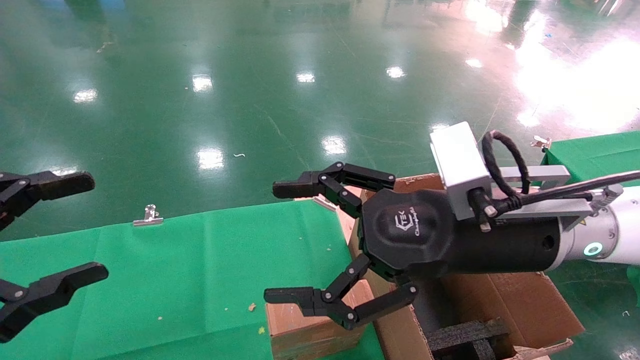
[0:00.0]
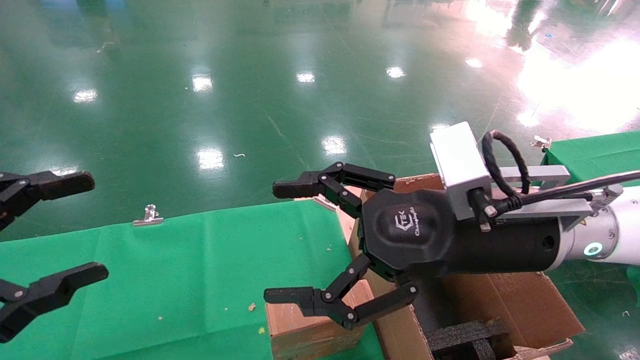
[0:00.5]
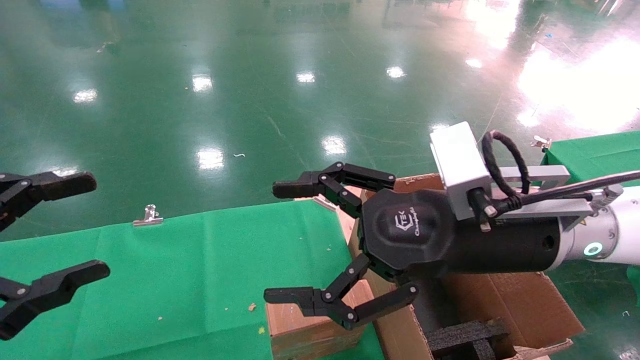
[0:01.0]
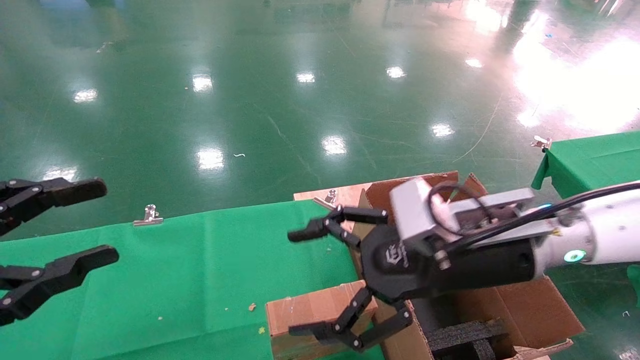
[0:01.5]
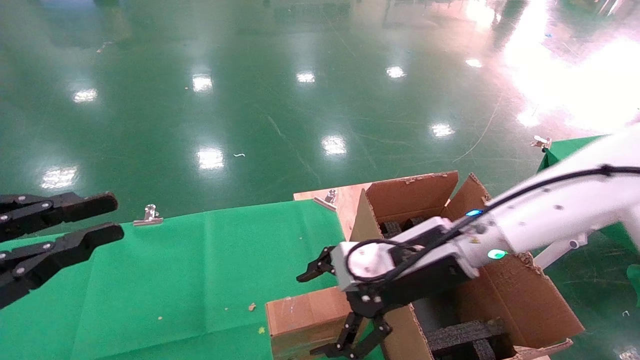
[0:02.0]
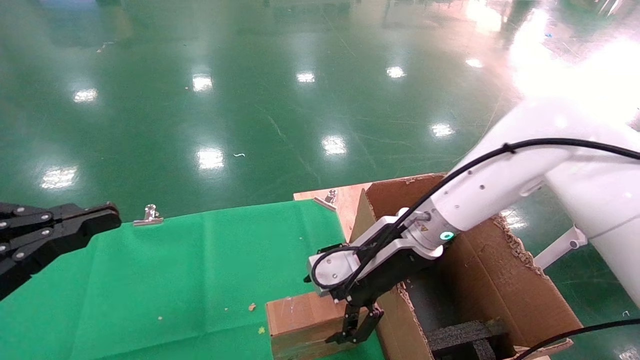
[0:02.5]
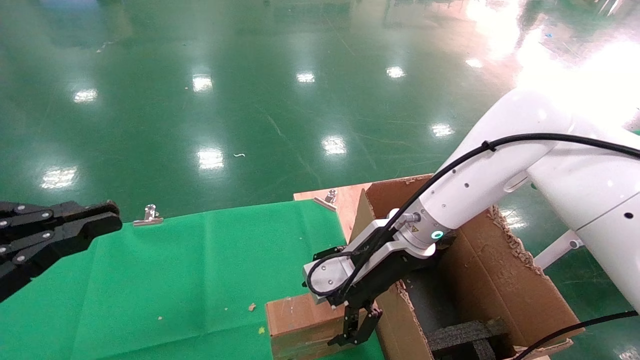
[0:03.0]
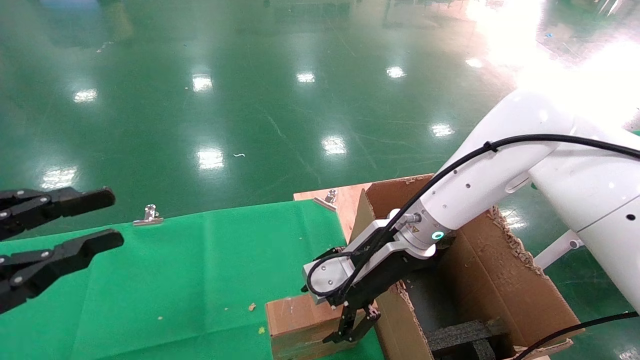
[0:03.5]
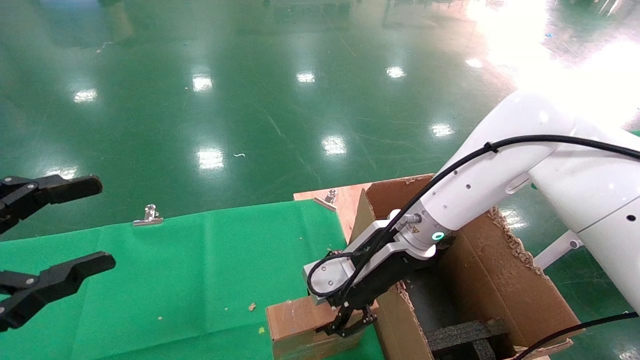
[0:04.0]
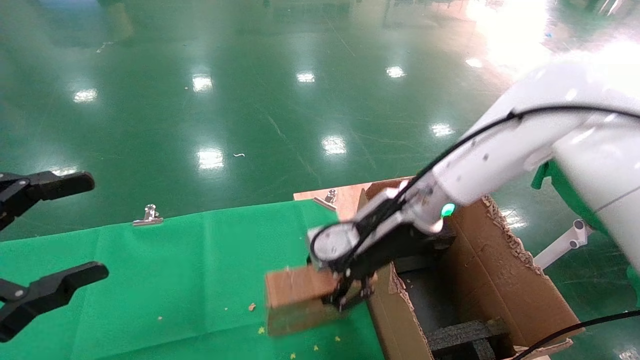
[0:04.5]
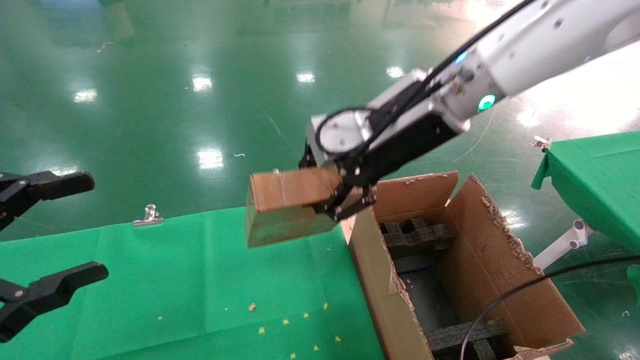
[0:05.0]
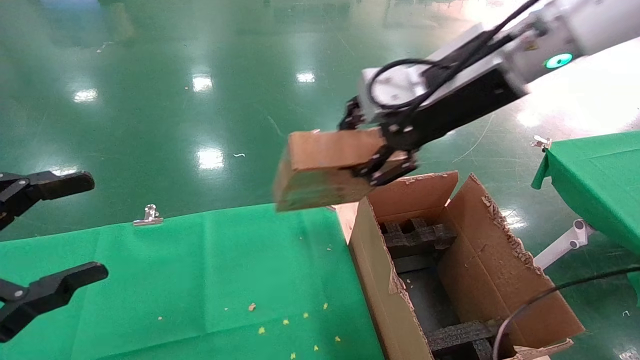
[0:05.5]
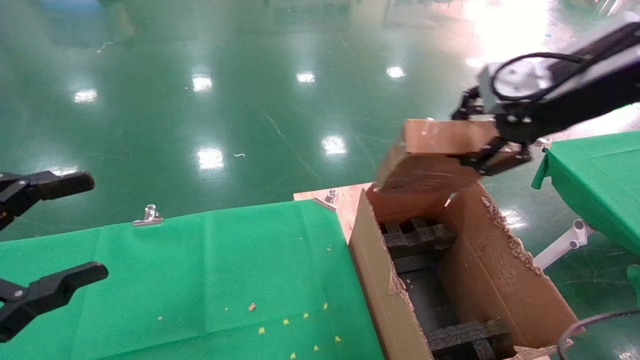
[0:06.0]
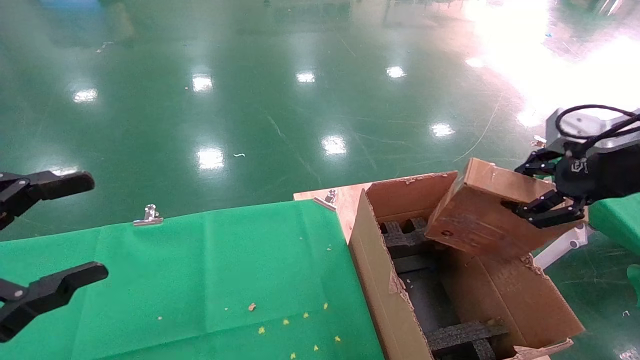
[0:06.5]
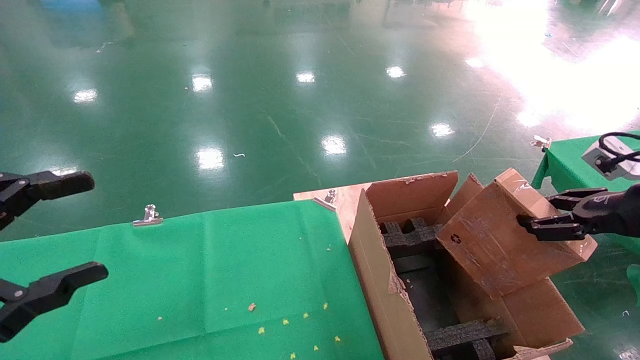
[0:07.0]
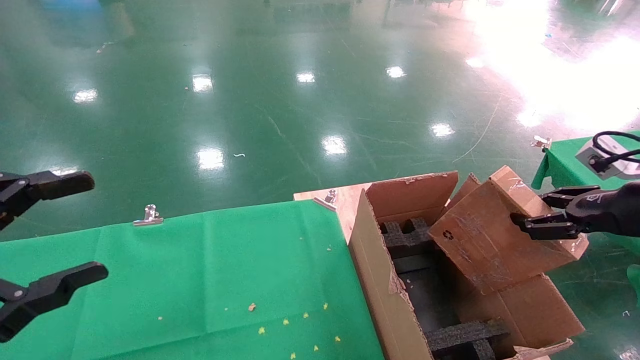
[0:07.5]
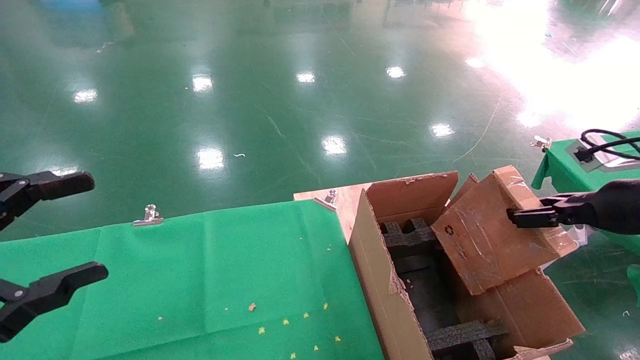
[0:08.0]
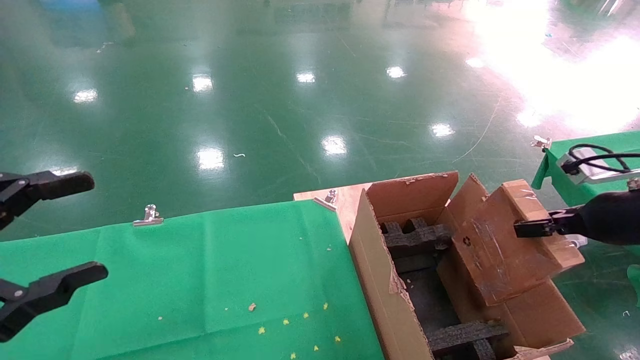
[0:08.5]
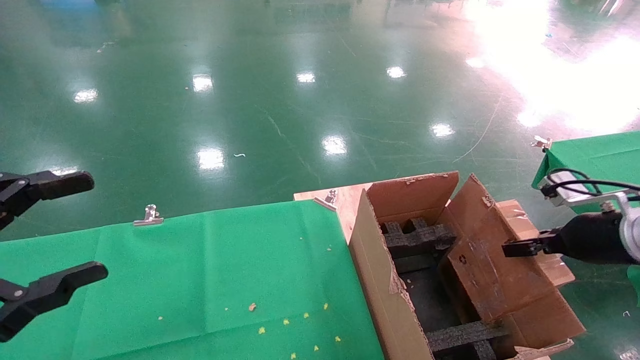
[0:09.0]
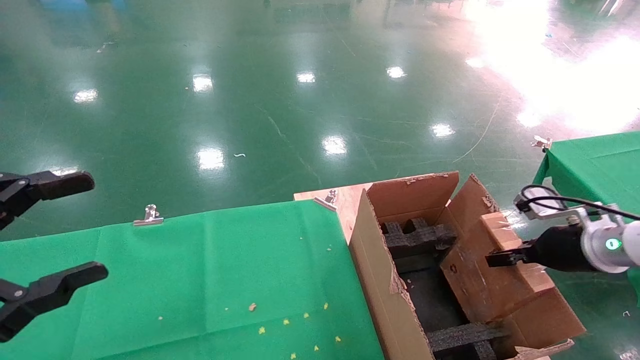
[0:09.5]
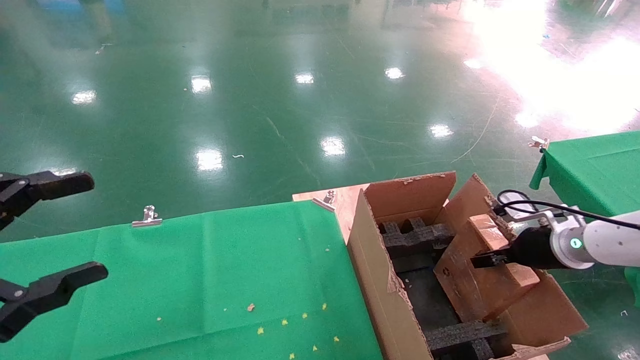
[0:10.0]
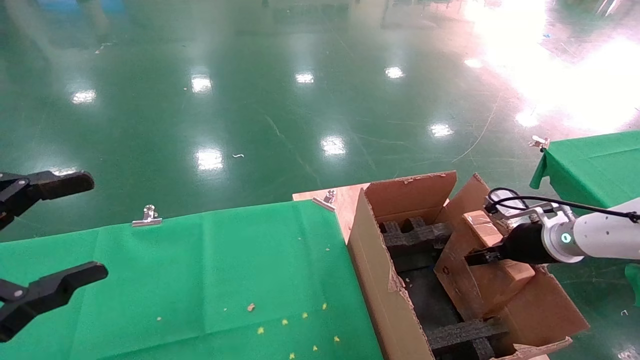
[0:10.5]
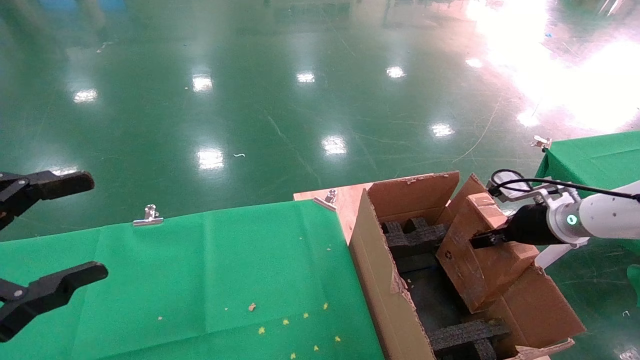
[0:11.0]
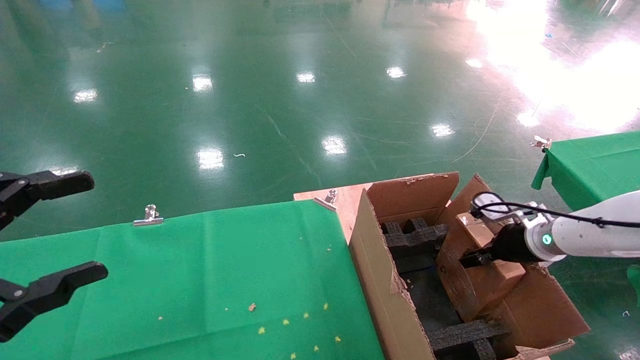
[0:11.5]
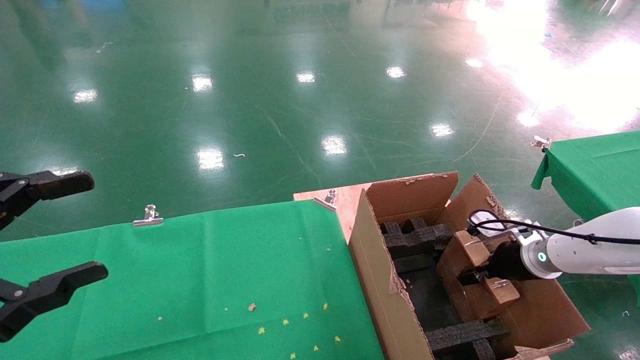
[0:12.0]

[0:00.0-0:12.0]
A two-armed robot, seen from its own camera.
Task of the whole recording: using a robotic arm to pick up a cardboard box and palace it the carton.
Step, 0:01.5 to 0:04.0: Pick up the mouse and the power cord paper box.
0:00.0 to 0:02.0: The right gripper goes roughly 10 cm forward and downward. Meanwhile the left gripper closes its fingers.
0:02.0 to 0:04.0: The right gripper closes up. The left gripper opens.
0:04.0 to 0:06.0: The right gripper moves upward and to the right, about 30 cm.
0:06.0 to 0:08.0: The right gripper heads downward and to the right, covering some 20 cm.
0:08.0 to 0:10.0: The right gripper goes roughly 15 cm downward and forward.
0:10.0 to 0:12.0: The grippers stay close to where they were, moving slightly.

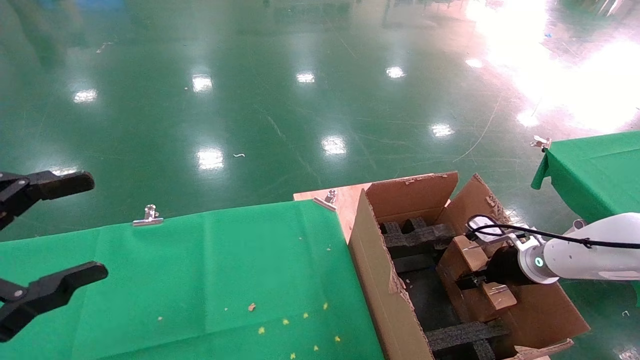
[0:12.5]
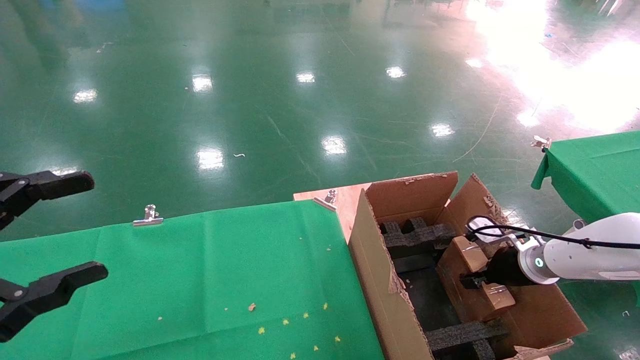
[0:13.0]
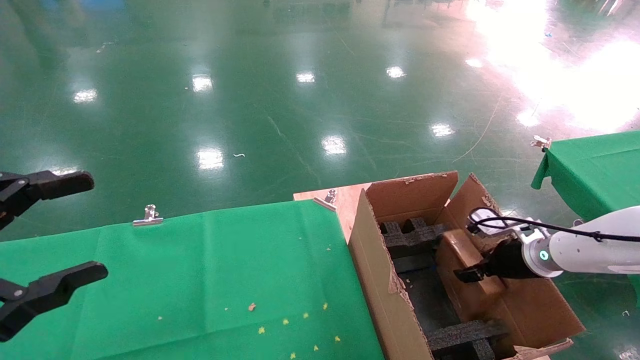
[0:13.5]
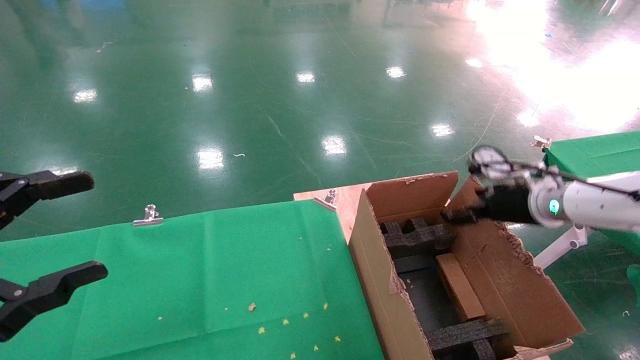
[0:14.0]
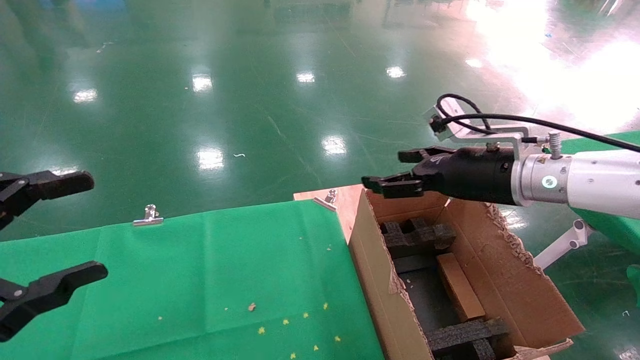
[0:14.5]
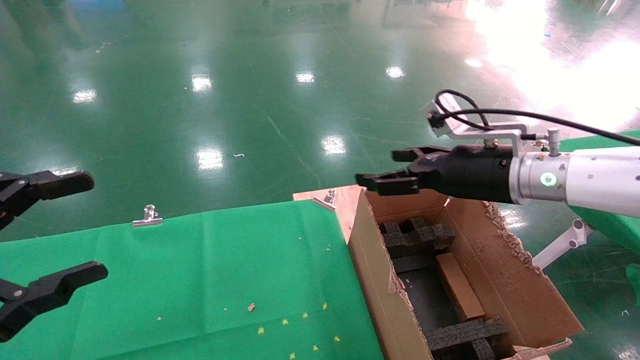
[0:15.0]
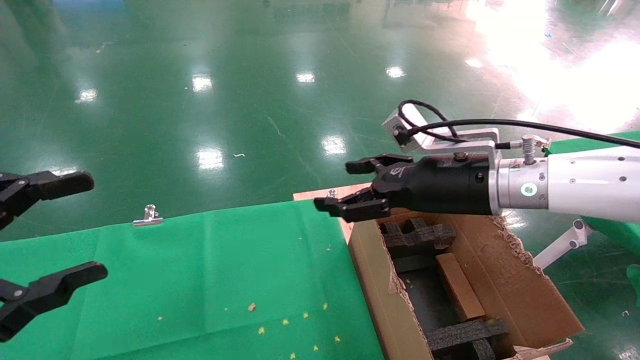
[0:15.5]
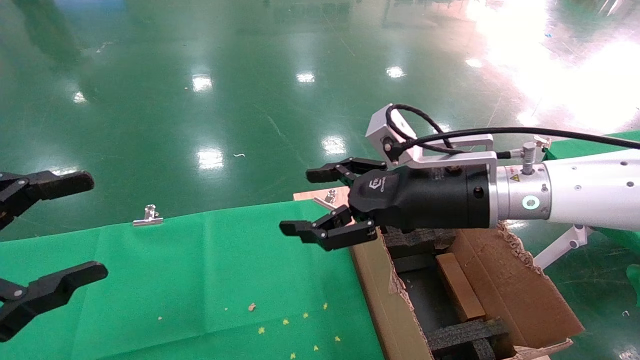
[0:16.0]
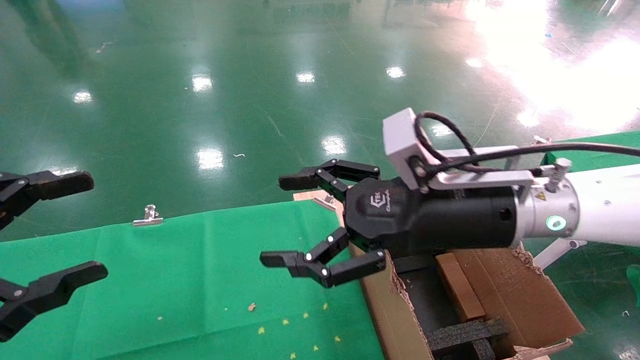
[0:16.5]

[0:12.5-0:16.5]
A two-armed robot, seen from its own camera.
Task of the whole recording: using a robotic arm to pick up a cardboard box and palace it the carton.
0:12.5 to 0:14.5: The right gripper shifts approximately 25 cm upward and to the left, and opens its fingers.
0:14.5 to 0:16.5: The right gripper goes about 10 cm to the left and backward.

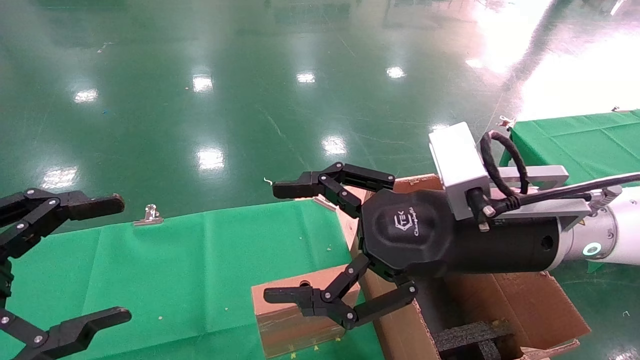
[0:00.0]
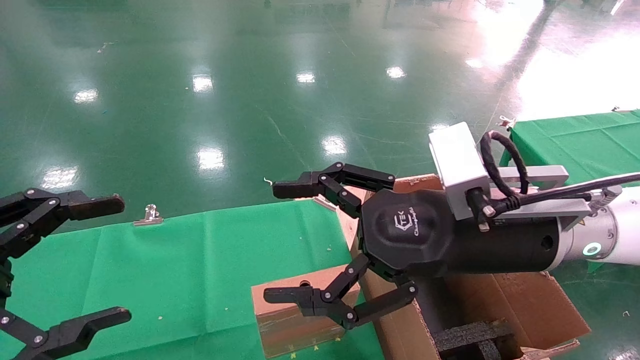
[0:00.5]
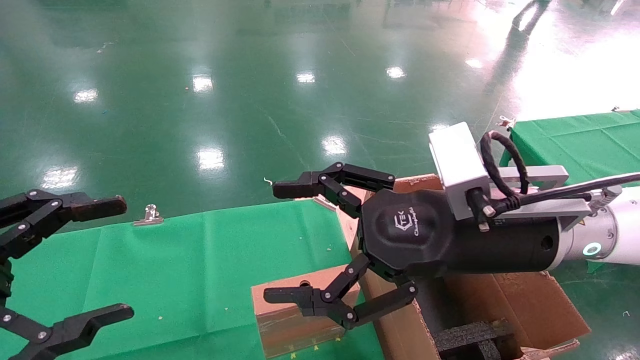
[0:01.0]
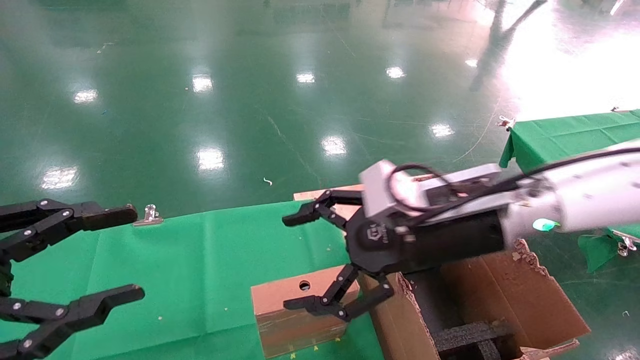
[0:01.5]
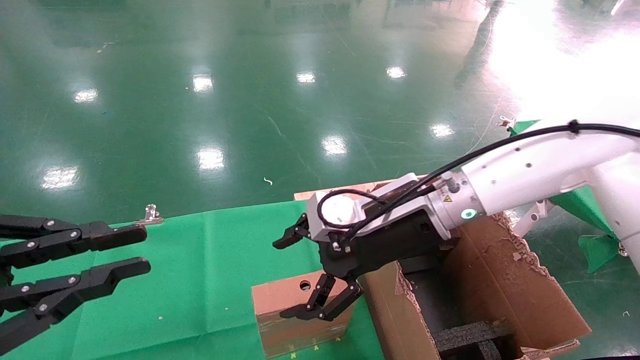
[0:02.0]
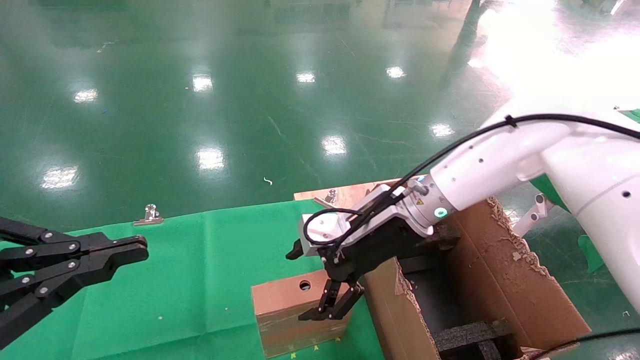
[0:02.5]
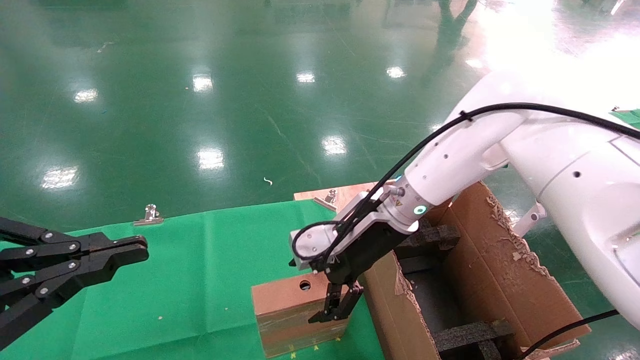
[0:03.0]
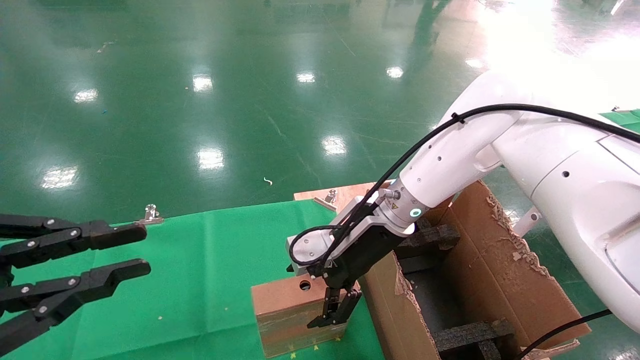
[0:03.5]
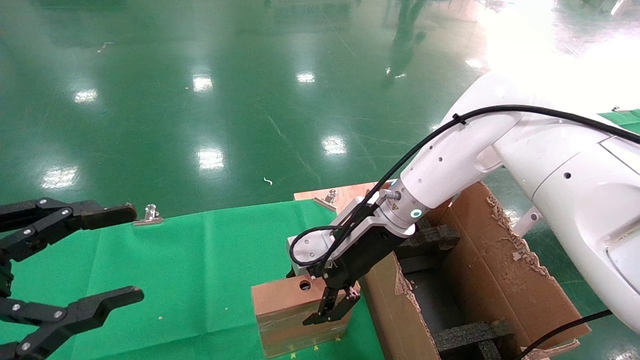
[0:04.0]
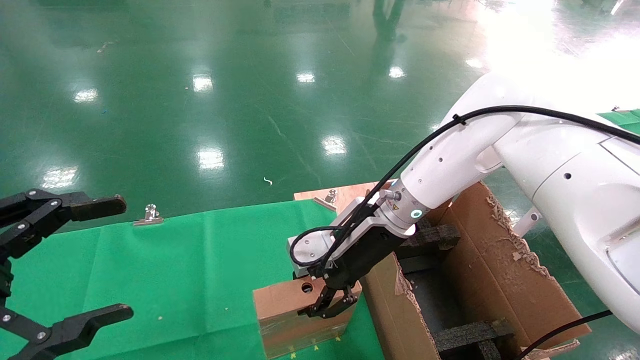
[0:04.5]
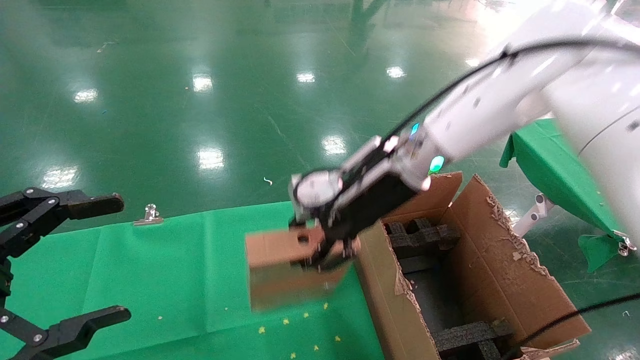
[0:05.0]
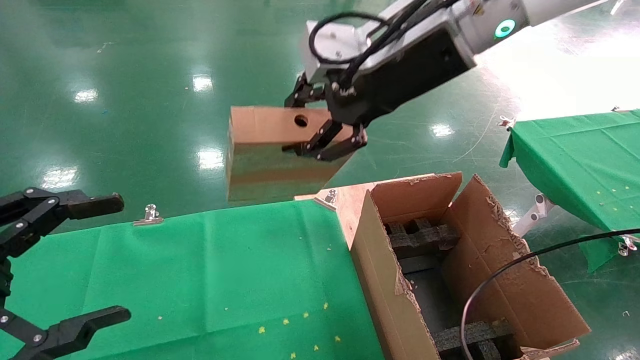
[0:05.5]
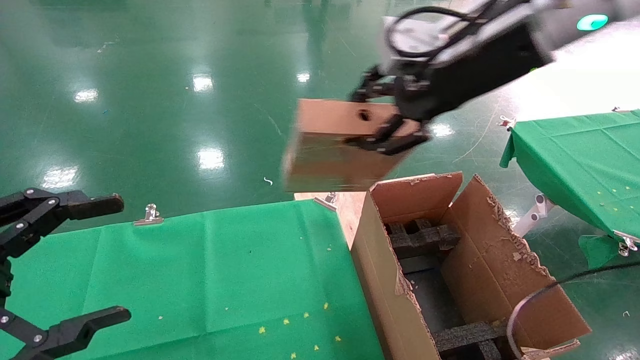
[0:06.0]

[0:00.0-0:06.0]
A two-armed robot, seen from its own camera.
Task of the whole recording: using a robotic arm to pick up a cardboard box and palace it the carton.
Step, 0:01.5 to 0:04.5: Pick up the mouse and the power cord paper box.
0:00.0 to 0:02.0: The left gripper closes its fingers. Meanwhile the right gripper travels forward by some 10 cm.
0:02.0 to 0:04.0: The right gripper shifts by roughly 5 cm.
0:04.0 to 0:06.0: The right gripper shifts approximately 25 cm upward and to the right, and closes its fingers. Meanwhile the left gripper opens up.
